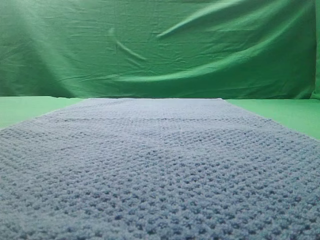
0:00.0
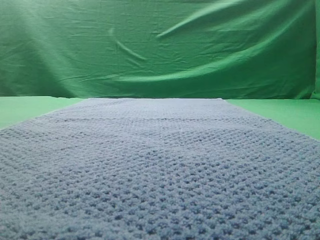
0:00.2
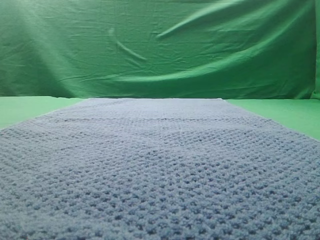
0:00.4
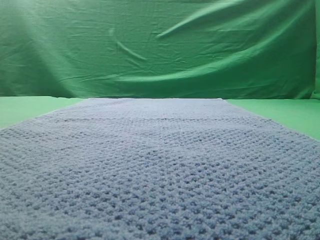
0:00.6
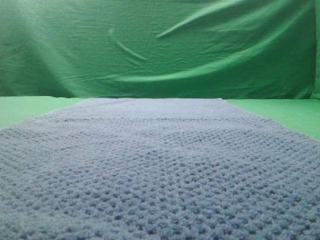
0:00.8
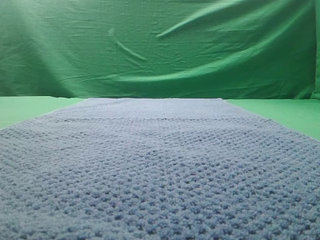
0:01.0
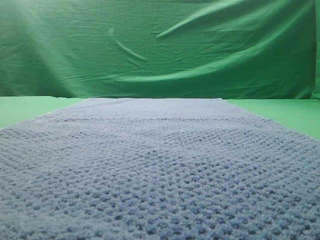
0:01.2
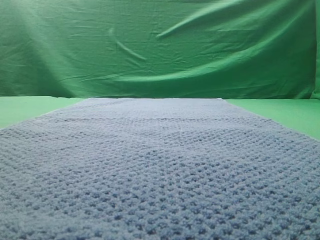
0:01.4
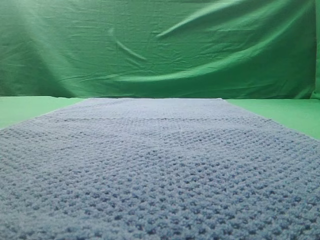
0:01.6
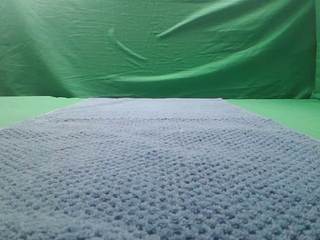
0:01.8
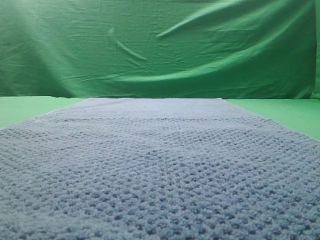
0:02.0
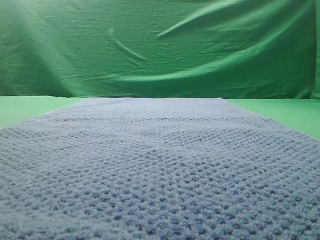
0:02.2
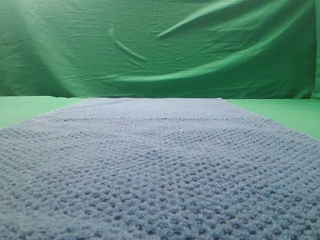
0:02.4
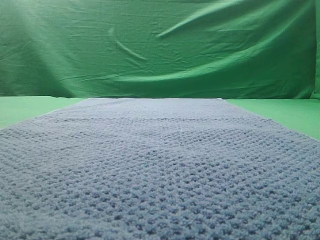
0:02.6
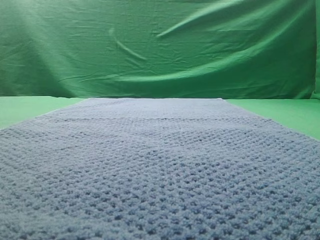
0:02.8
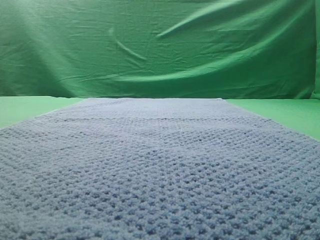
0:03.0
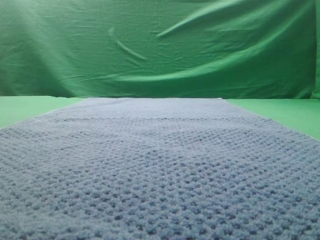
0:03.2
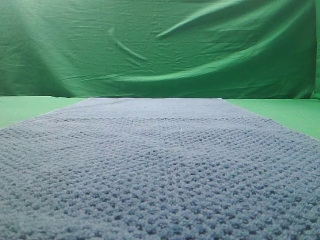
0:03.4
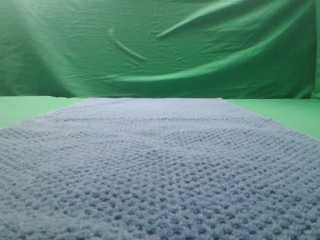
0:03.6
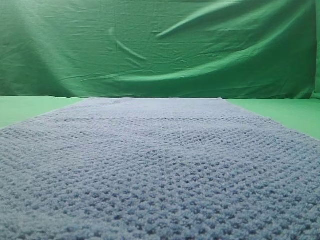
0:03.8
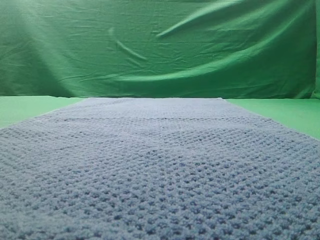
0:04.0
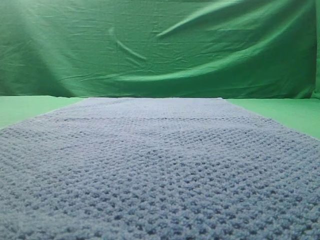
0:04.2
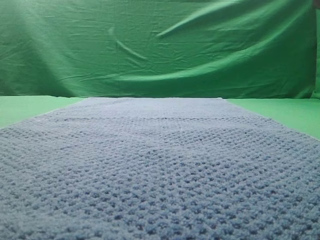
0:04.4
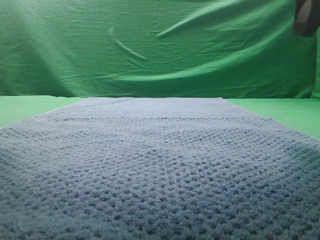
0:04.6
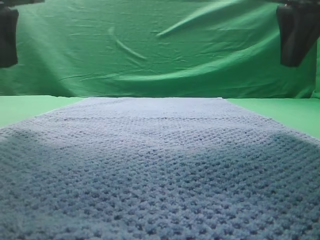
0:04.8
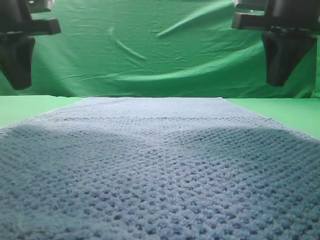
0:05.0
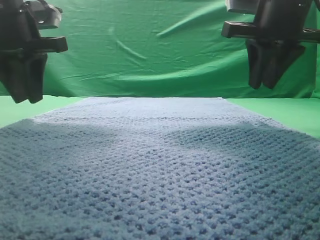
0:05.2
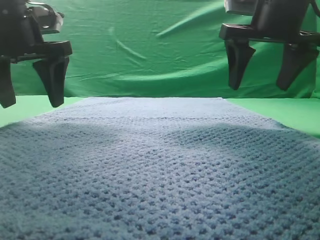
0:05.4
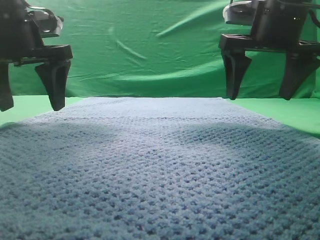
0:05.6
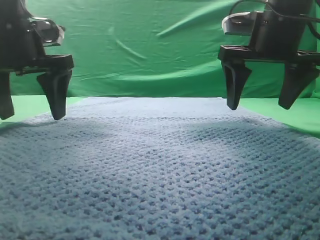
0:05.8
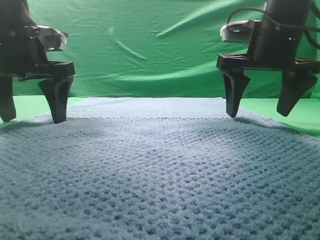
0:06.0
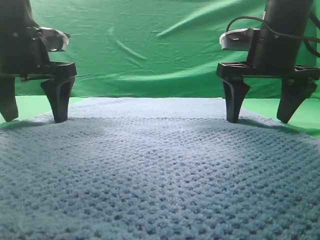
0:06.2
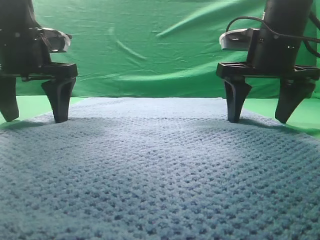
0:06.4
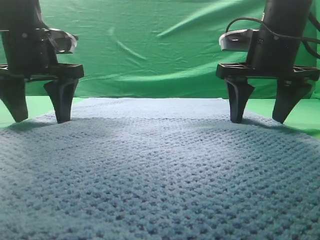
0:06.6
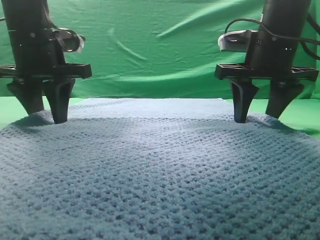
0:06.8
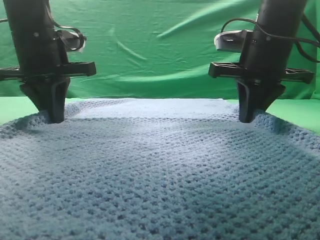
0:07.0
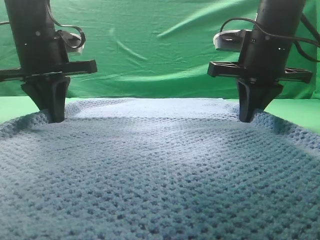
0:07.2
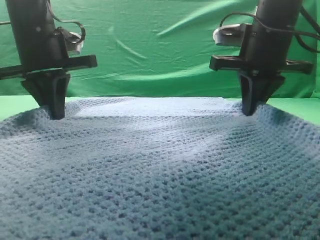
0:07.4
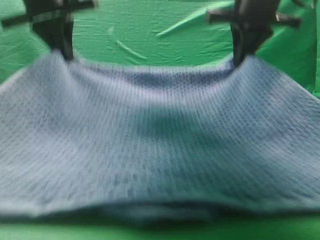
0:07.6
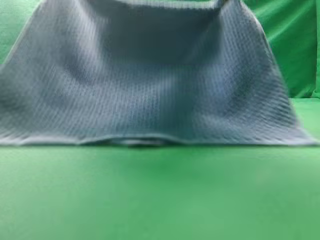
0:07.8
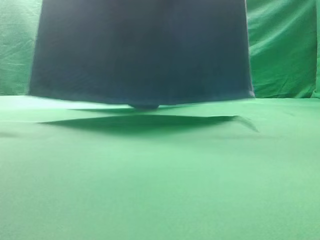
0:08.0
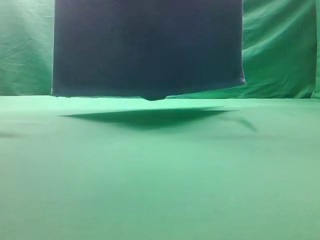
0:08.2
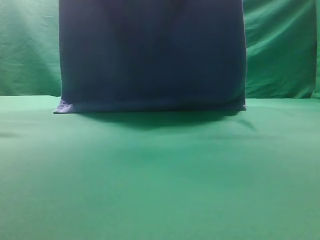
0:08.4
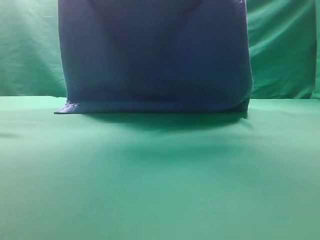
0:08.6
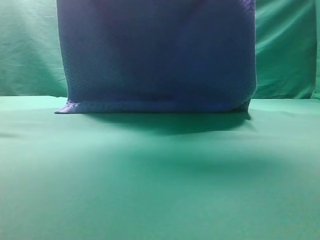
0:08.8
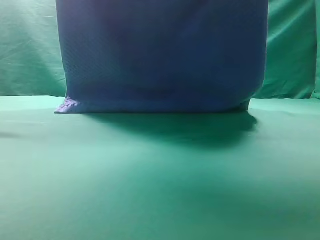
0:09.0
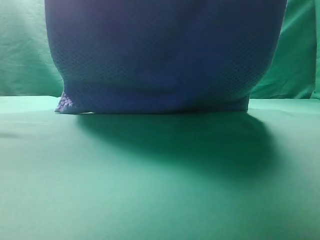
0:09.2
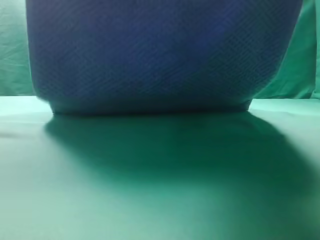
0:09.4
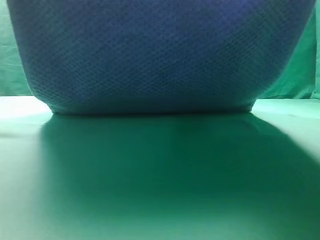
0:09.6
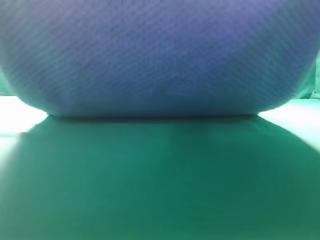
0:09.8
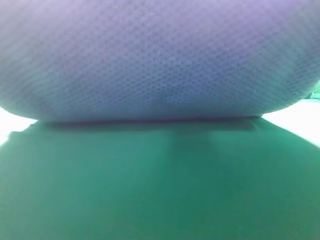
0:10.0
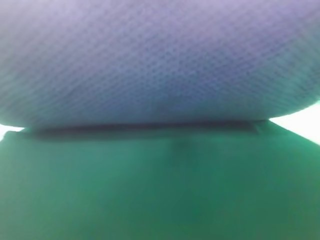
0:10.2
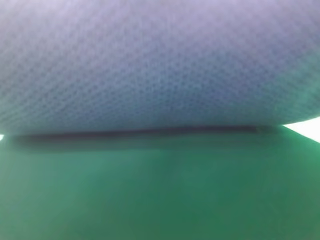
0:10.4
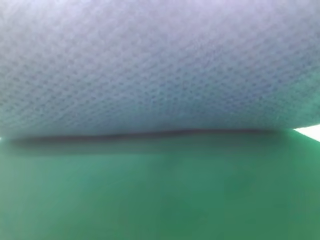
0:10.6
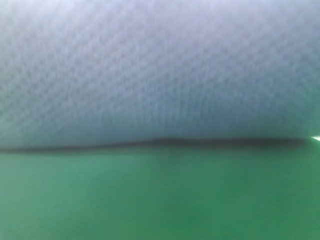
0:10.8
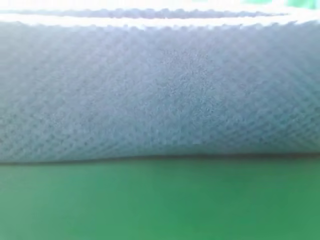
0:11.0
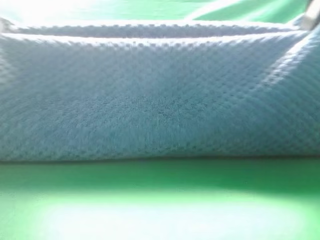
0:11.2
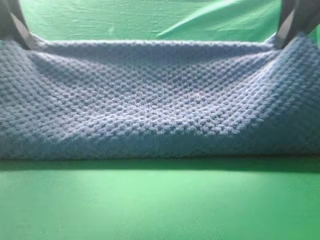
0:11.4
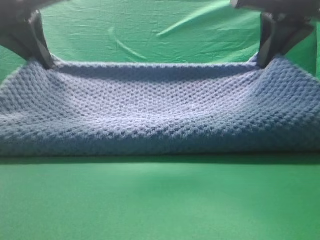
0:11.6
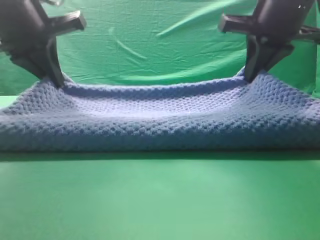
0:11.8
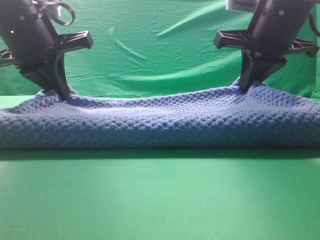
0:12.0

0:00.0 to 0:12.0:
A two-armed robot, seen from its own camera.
Task of the whole recording: fold the towel on the table twice.
Step, 0:00.0 to 0:08.2: pick up the towel with two arm.

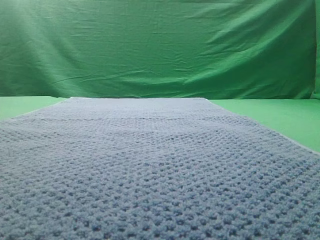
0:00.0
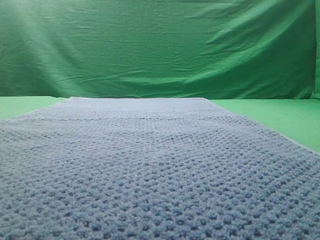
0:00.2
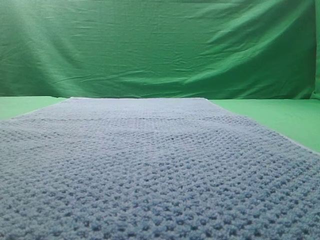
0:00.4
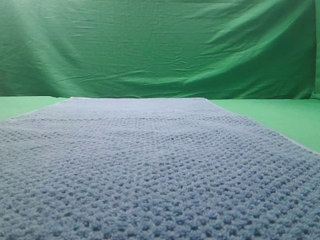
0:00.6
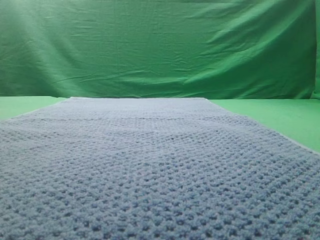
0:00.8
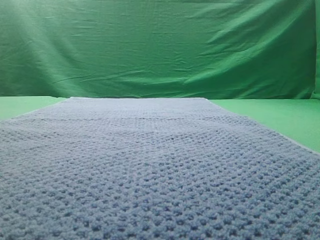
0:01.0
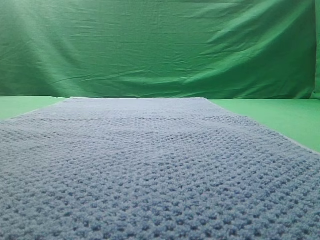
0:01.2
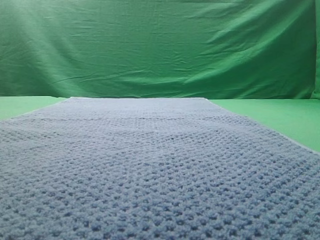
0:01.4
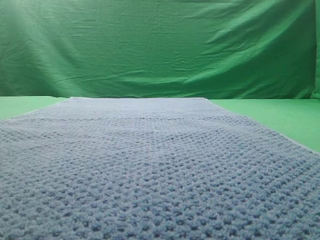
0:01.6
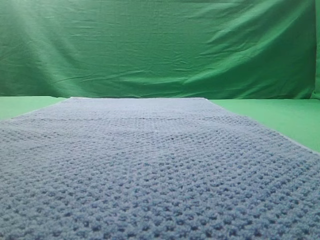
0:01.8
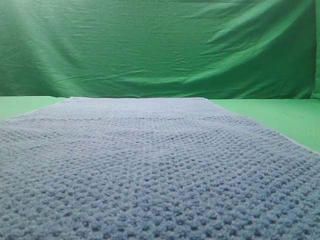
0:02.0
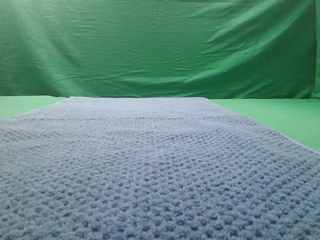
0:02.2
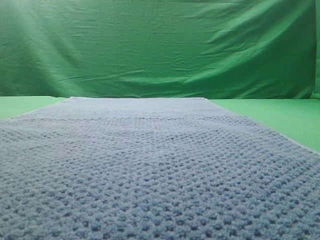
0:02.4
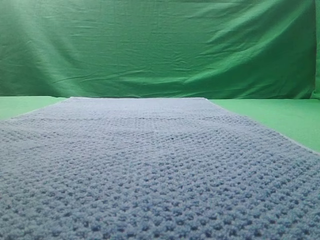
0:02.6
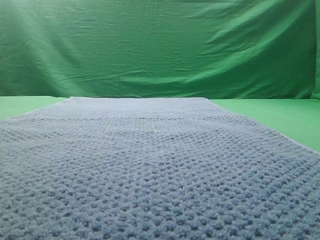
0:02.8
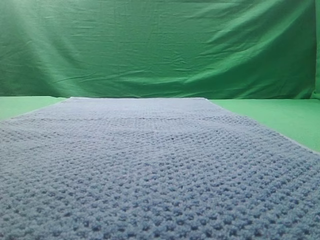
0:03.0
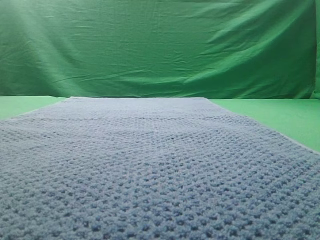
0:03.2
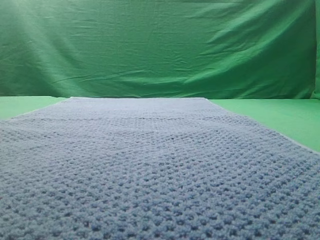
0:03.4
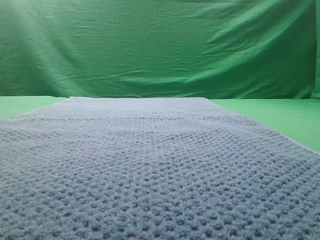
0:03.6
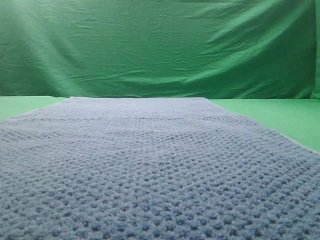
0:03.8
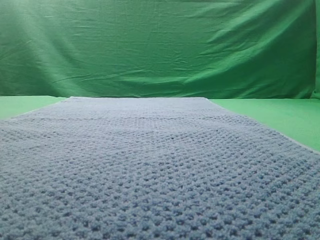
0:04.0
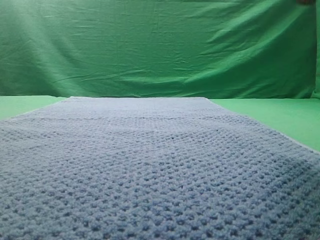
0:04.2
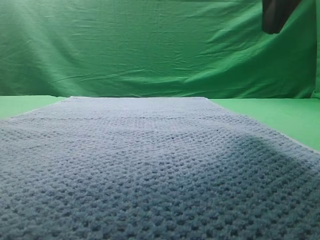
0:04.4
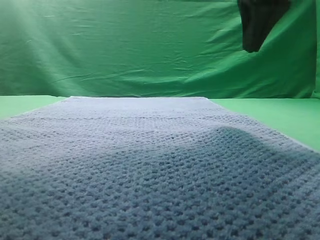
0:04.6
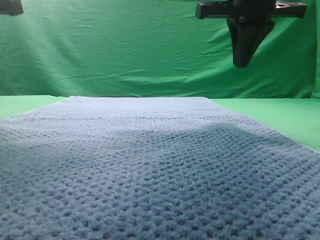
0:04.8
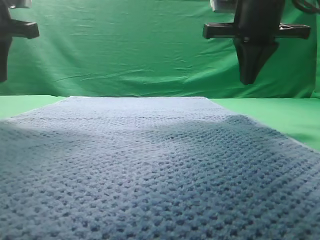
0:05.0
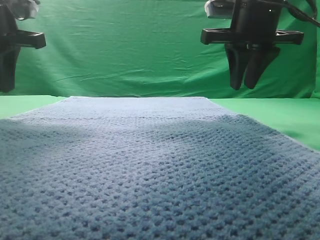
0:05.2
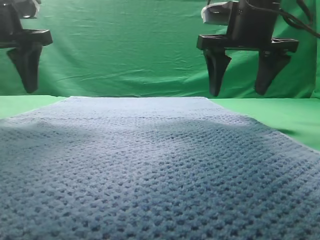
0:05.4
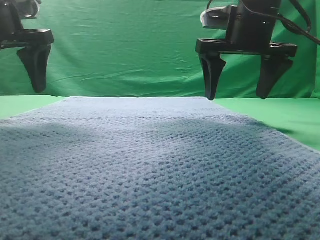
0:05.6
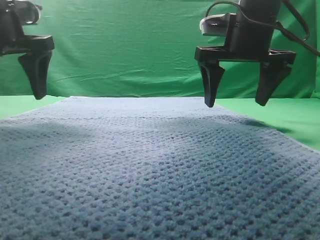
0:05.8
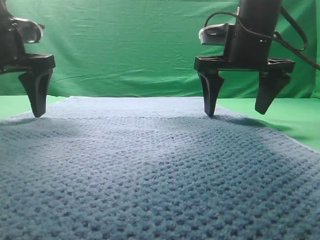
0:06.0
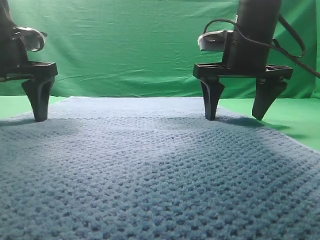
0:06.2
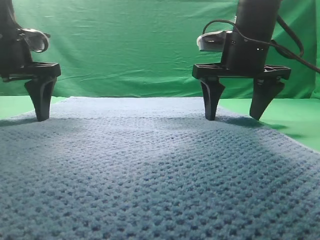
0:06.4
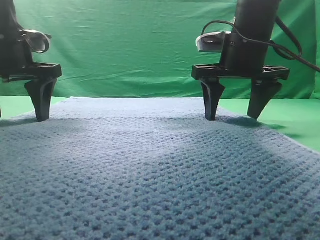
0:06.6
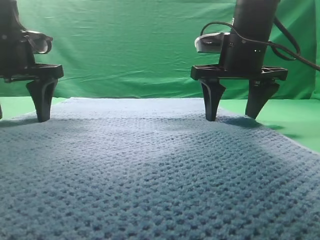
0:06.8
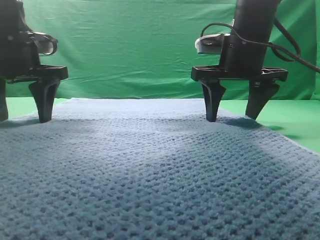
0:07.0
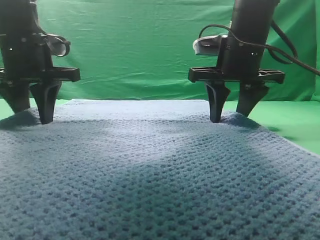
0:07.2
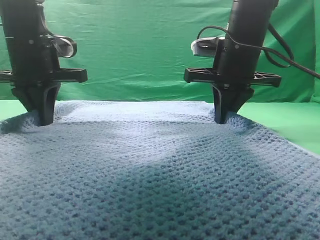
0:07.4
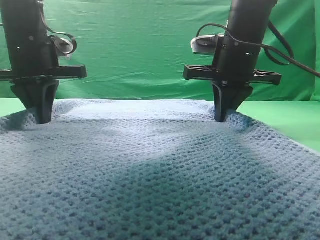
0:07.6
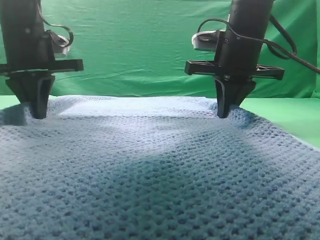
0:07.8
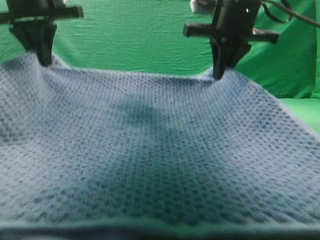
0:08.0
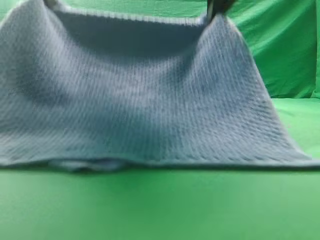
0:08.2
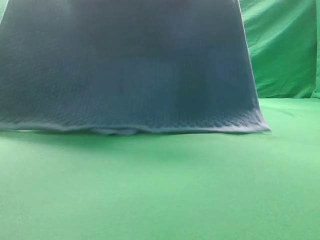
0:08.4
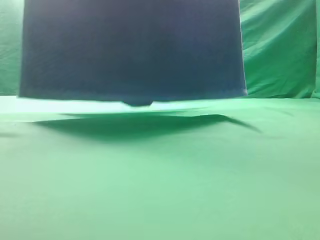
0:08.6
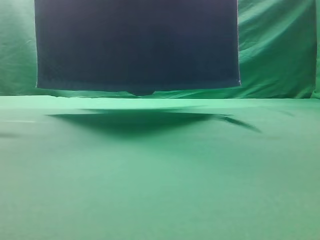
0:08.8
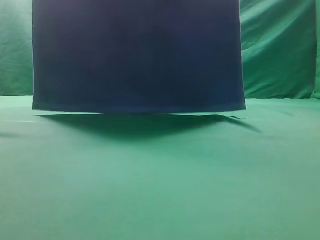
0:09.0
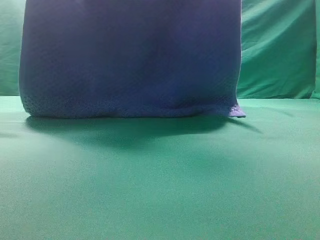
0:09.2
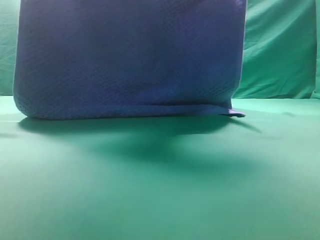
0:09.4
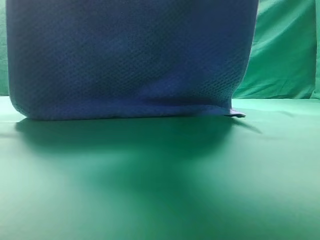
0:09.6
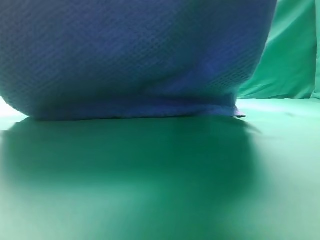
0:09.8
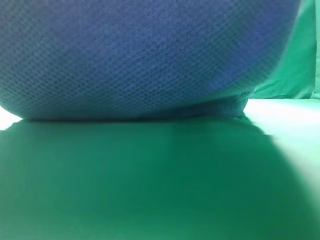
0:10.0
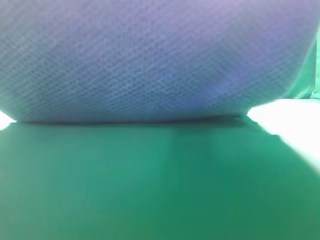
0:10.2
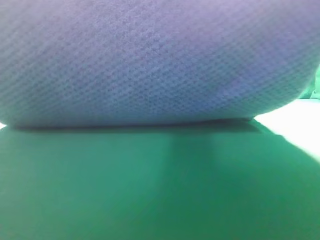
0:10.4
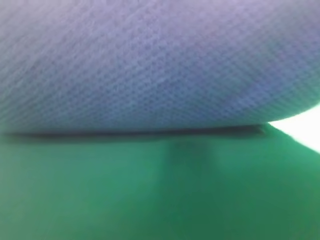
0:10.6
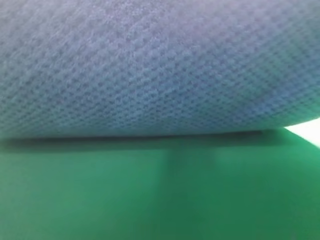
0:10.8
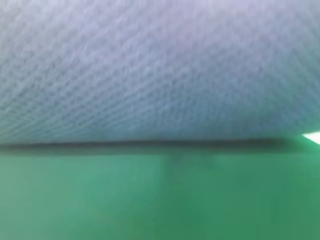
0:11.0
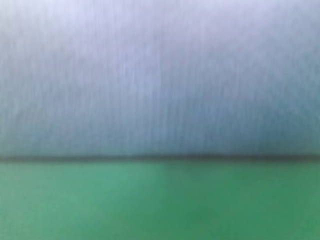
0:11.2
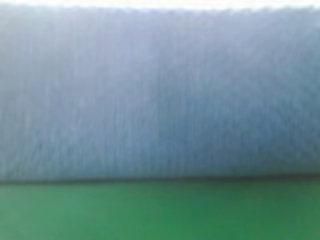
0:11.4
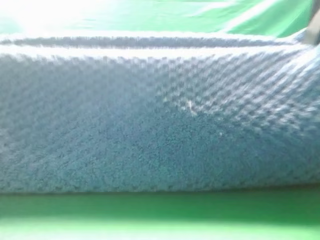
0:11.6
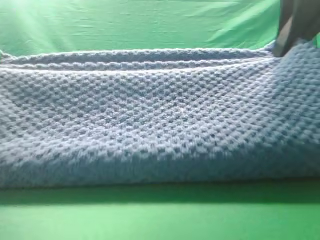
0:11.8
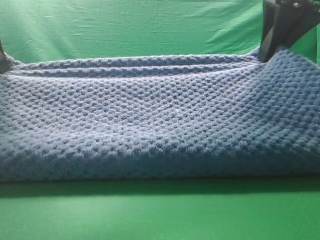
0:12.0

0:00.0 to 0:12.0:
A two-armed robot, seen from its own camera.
Task of the whole recording: fold the towel on the table twice.
Step, 0:00.0 to 0:08.6: pick up the towel with two arm.
